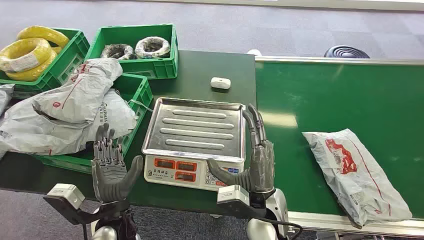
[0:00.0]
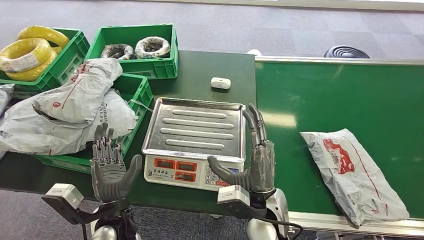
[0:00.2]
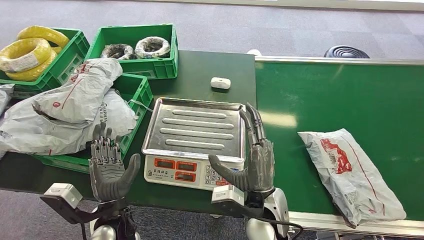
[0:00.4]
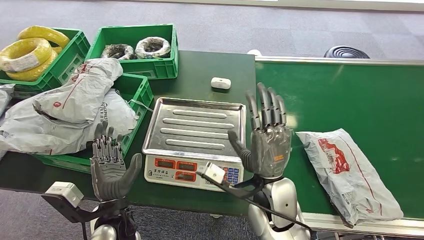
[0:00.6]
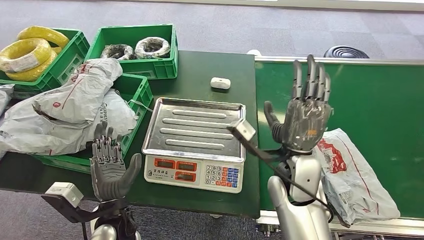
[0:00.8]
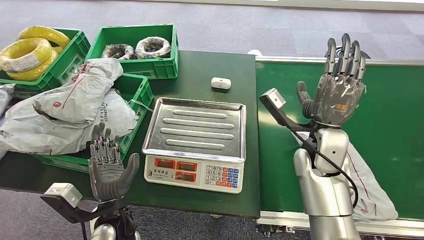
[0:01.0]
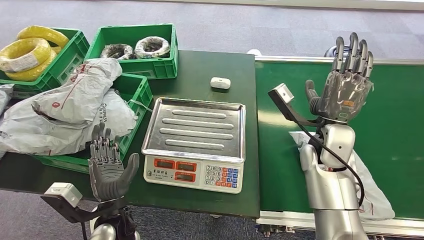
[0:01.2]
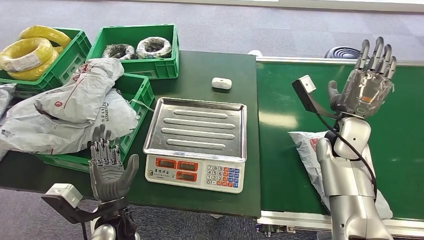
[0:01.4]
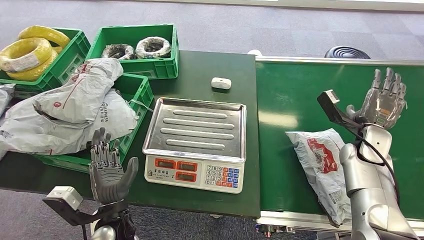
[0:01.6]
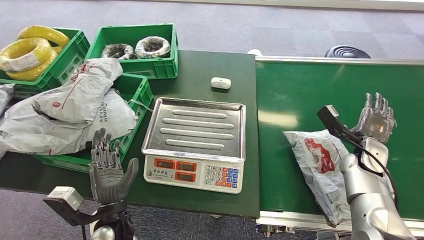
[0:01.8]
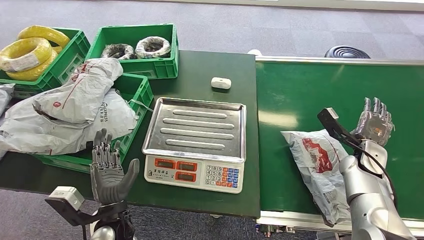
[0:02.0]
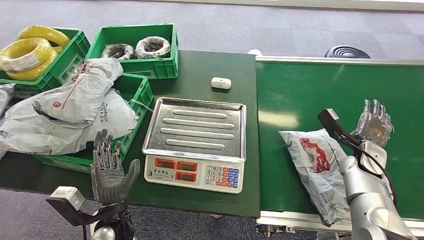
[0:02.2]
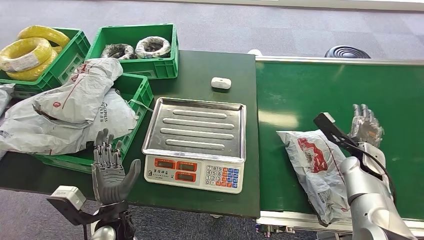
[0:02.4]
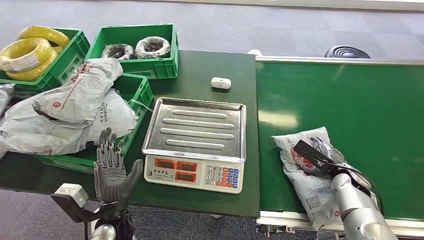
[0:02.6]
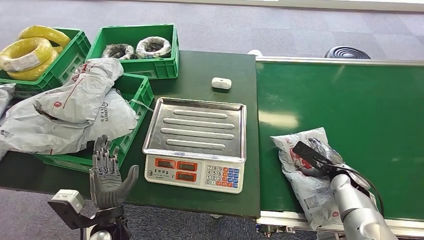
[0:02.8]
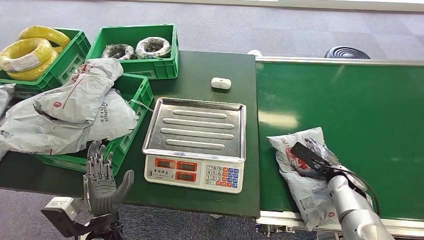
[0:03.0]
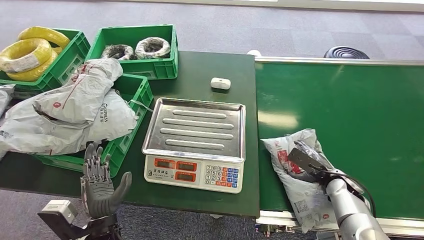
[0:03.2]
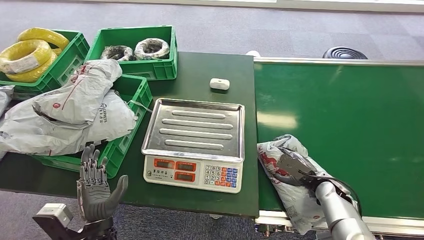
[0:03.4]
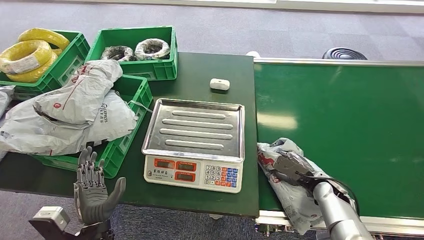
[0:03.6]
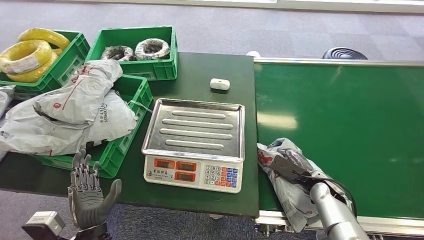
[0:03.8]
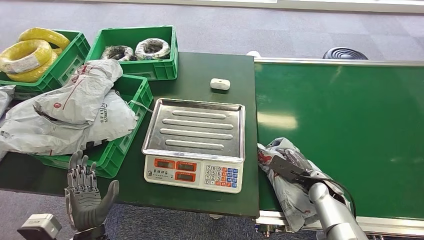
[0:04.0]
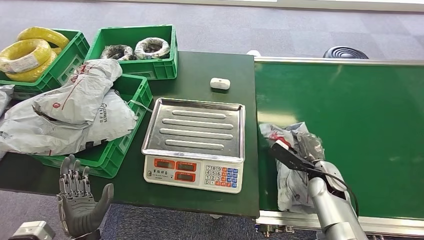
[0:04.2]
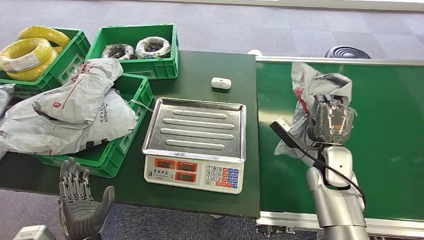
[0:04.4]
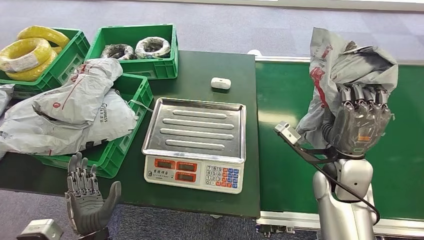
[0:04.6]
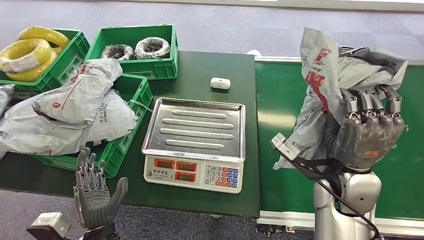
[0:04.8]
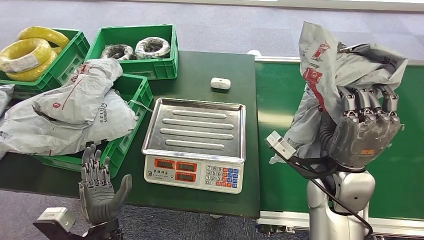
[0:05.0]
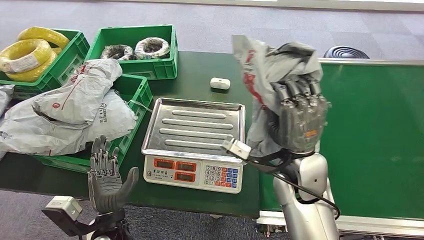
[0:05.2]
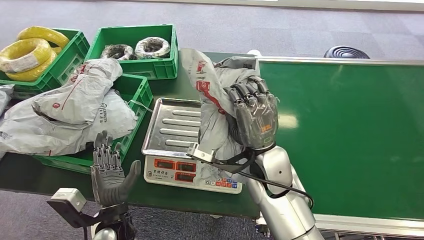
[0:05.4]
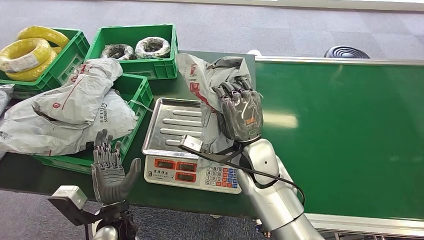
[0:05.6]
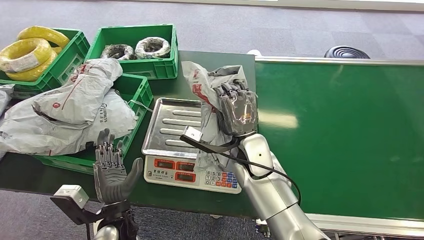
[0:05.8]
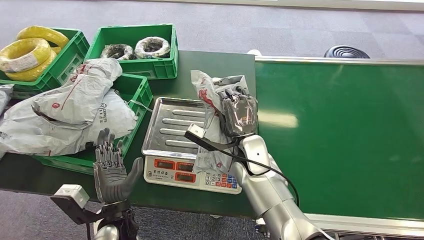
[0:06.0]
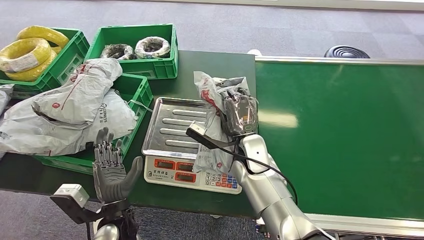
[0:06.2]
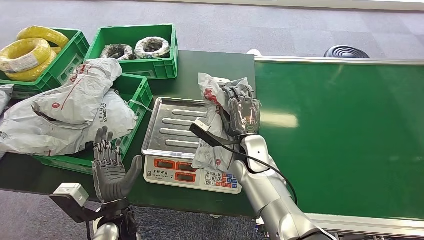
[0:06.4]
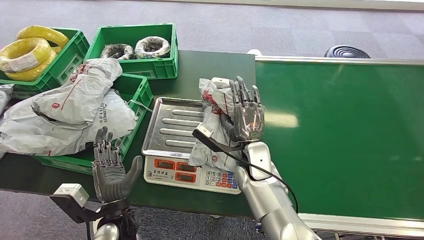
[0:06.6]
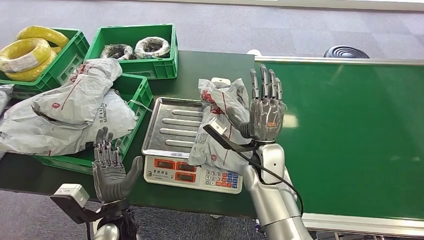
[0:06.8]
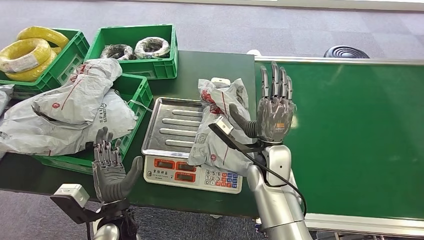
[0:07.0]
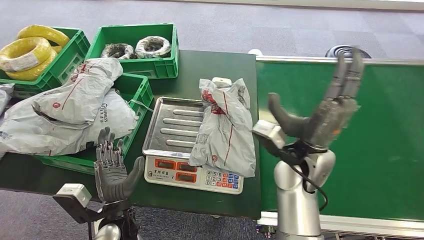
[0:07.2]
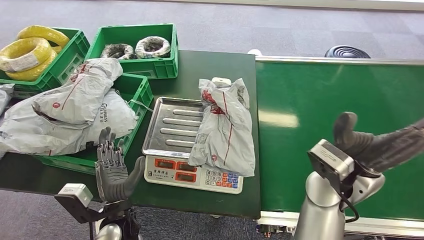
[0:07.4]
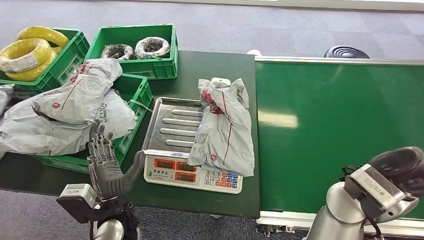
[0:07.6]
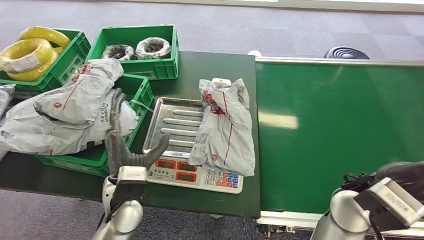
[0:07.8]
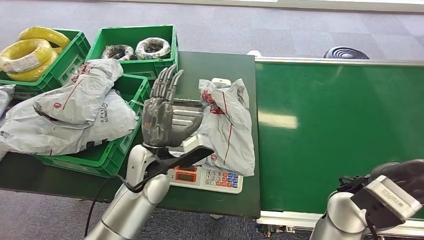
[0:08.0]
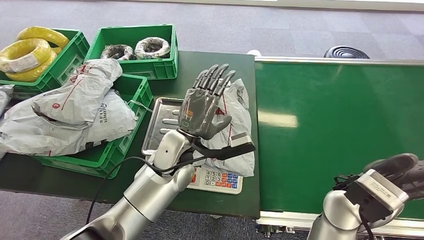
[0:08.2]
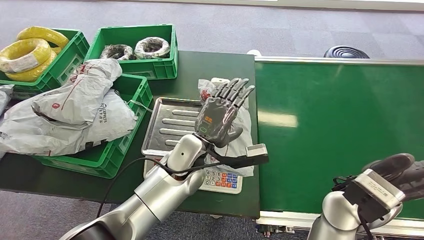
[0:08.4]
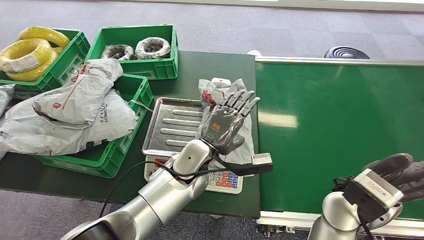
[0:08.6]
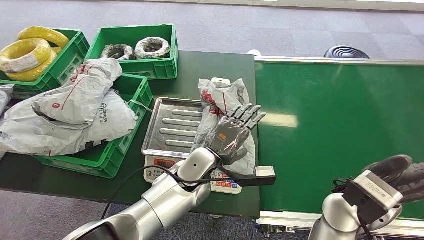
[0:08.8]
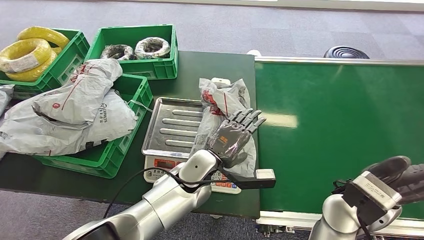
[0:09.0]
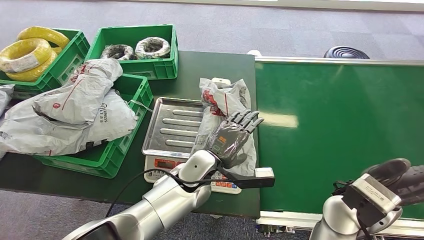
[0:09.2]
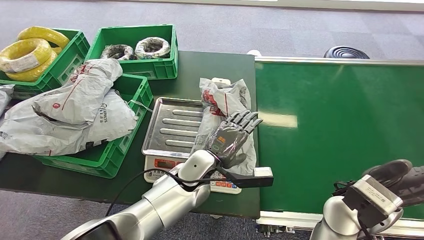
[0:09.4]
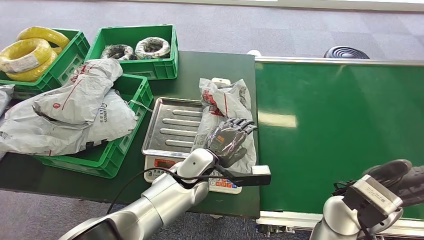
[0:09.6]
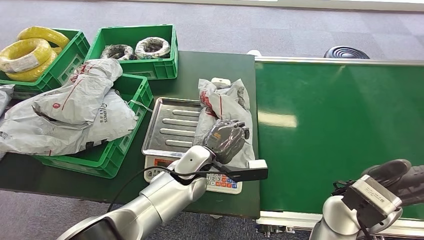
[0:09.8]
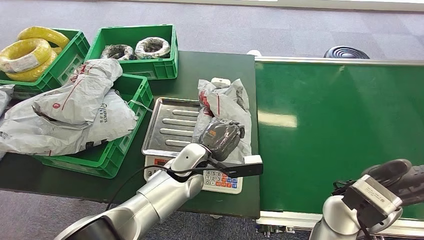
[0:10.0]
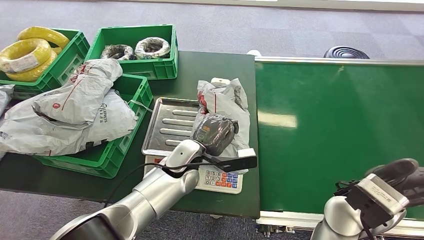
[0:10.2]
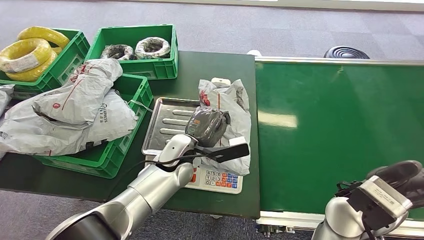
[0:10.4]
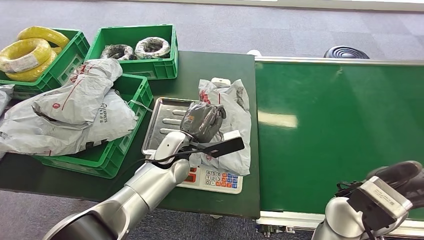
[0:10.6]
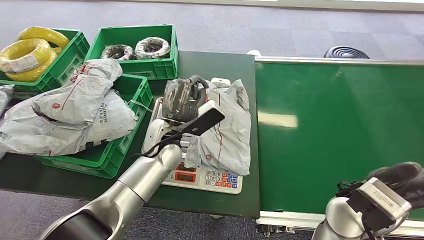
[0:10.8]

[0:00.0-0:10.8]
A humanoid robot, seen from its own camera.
Step, 0:00.0 to 0:04.8: Pick up the package from the conveyor belt.
Step, 0:05.2 to 0:07.4: Place the package onto the inbound machine.
Step, 0:07.8 to 0:10.6: Pick up the package from the inbound machine.
0:01.6 to 0:03.0: The right hand is displaced downward and backward by roughly 15 cm.
0:03.0 to 0:04.6: The right hand heads upward and to the left, covering approximately 20 cm.
0:07.8 to 0:09.2: The left hand moves to the right and forward, some 15 cm.
0:09.2 to 0:10.8: The left hand moves to the left and forward, approximately 10 cm.
